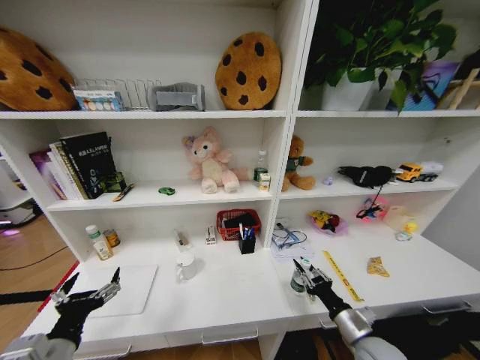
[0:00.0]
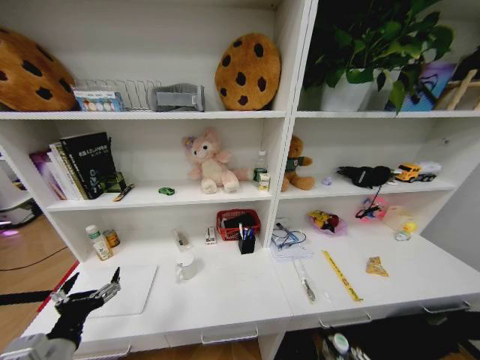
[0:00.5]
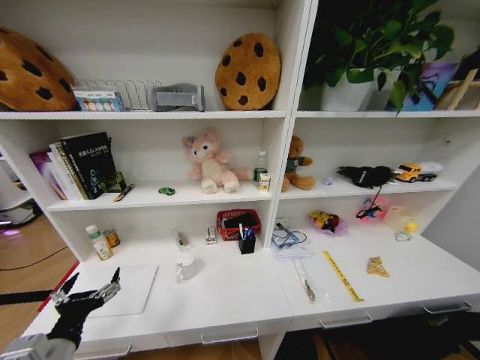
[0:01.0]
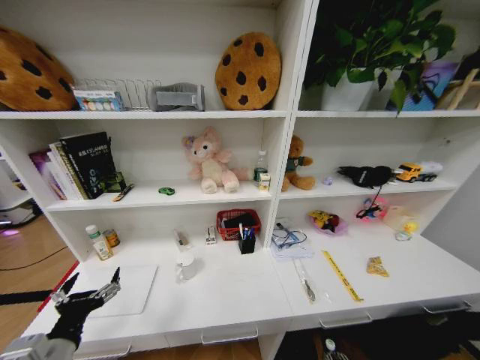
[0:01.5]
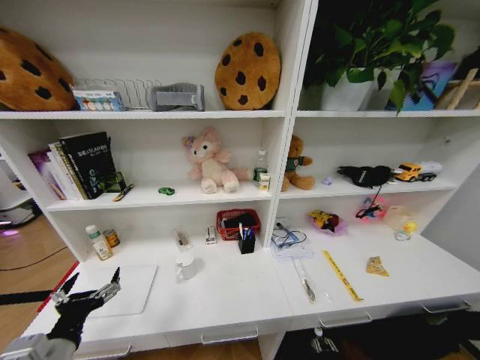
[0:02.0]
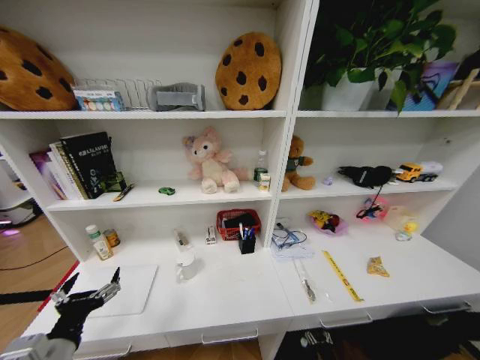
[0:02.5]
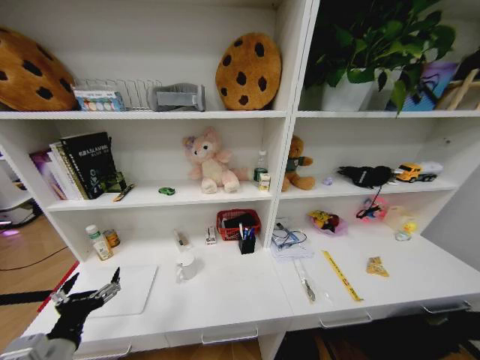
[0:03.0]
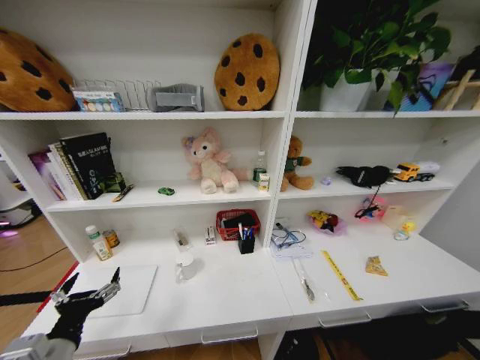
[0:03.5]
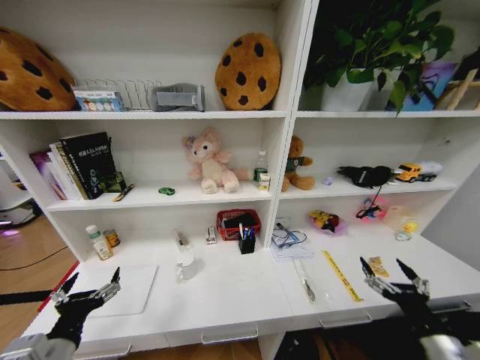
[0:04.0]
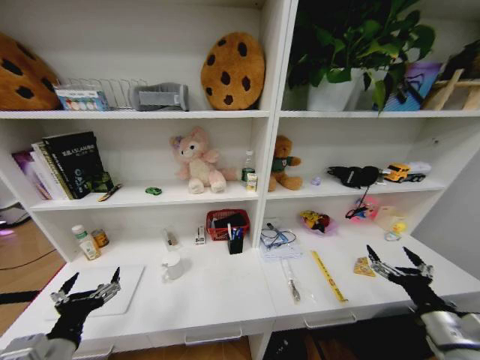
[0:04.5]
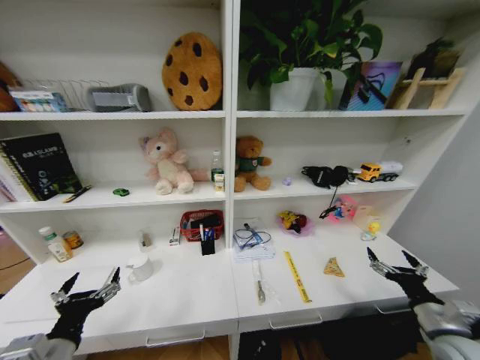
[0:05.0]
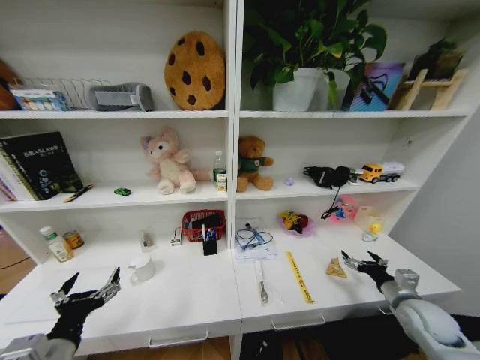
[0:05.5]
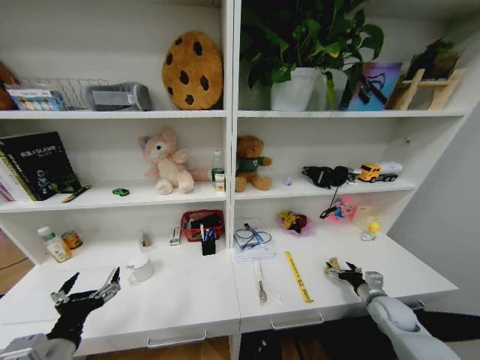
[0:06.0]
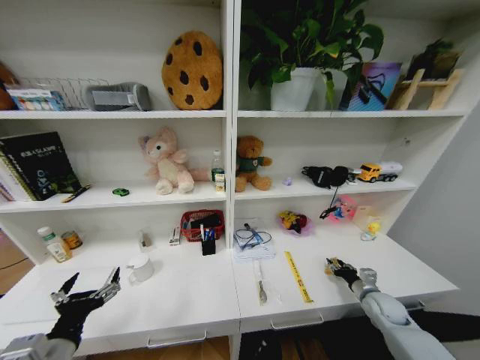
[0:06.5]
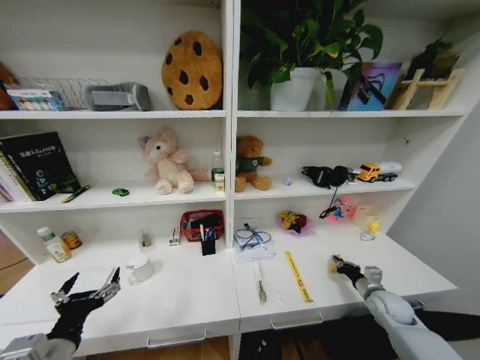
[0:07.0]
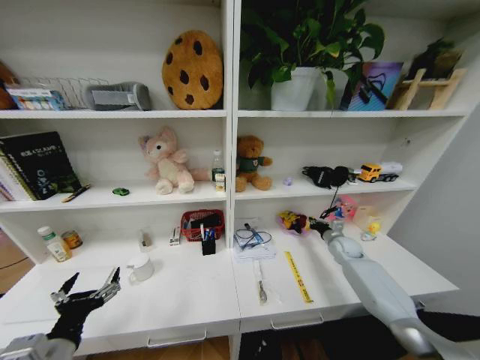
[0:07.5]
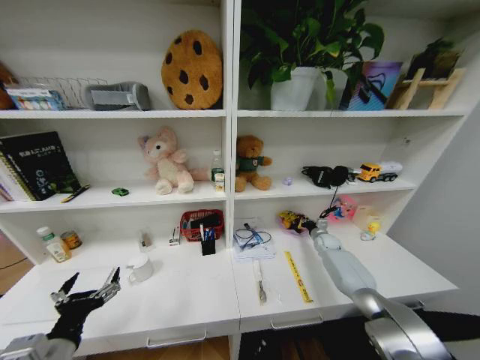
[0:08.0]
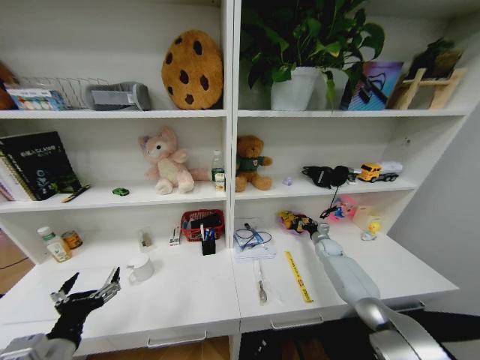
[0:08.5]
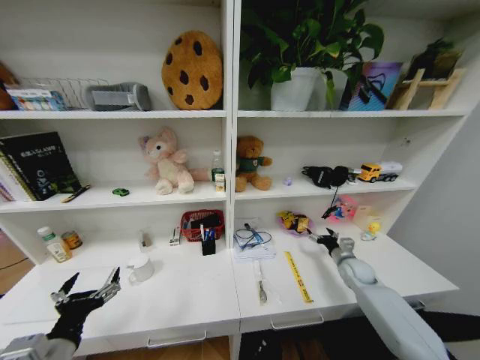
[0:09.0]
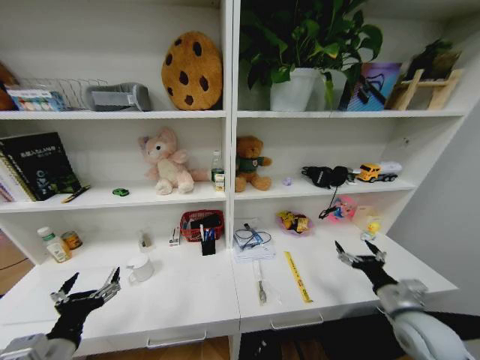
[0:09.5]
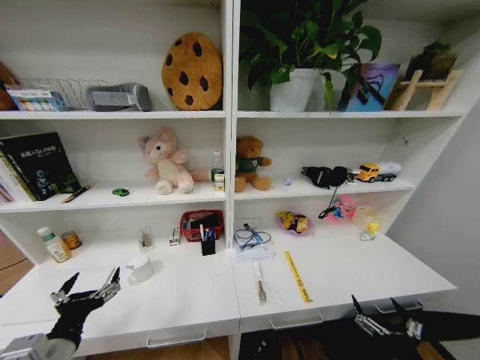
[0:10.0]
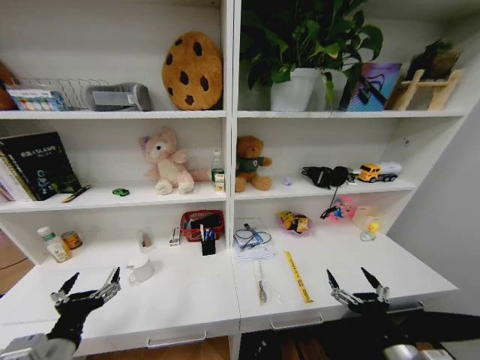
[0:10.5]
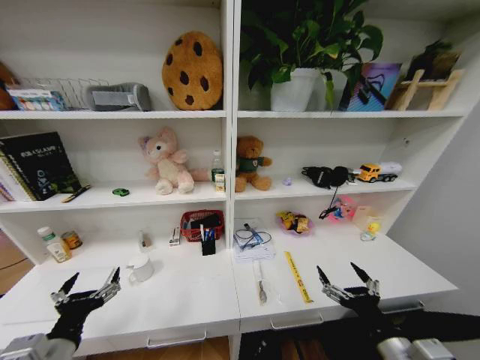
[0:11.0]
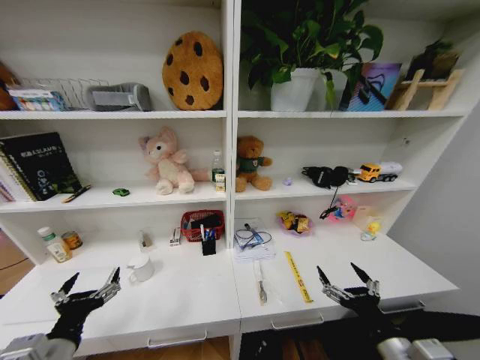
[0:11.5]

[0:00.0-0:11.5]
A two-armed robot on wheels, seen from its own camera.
Task of the whole recording: Organize the objects on the table.
0:00.0 to 0:02.0: The right gripper moves downward, about 35 cm.
0:02.0 to 0:04.0: The right gripper travels upward by approximately 40 cm, and opens its fingers.
0:04.0 to 0:06.0: The right gripper travels forward, downward and to the right by some 25 cm.
0:06.0 to 0:07.5: The right gripper travels forward by some 20 cm, and closes.
0:07.5 to 0:09.5: The right gripper is displaced backward by roughly 30 cm, and opens its fingers.
0:09.5 to 0:11.5: The right gripper is displaced backward and to the left by approximately 15 cm.

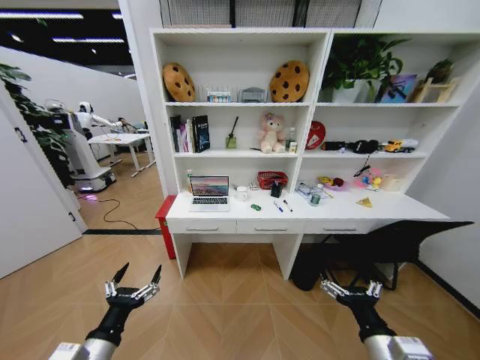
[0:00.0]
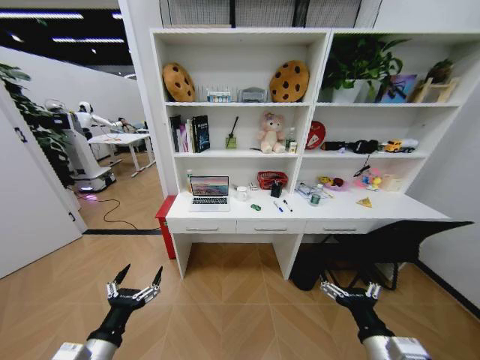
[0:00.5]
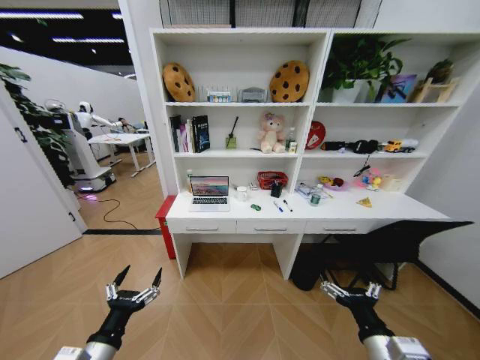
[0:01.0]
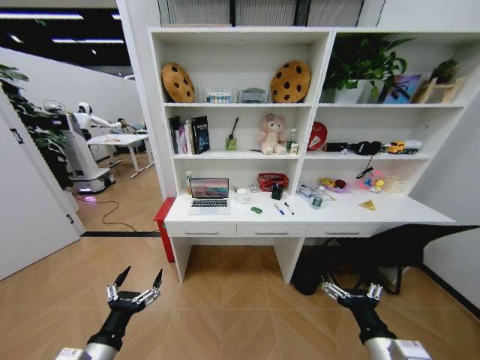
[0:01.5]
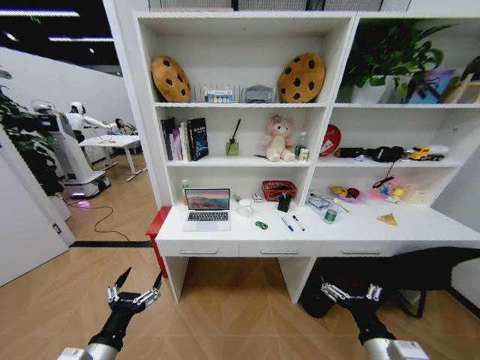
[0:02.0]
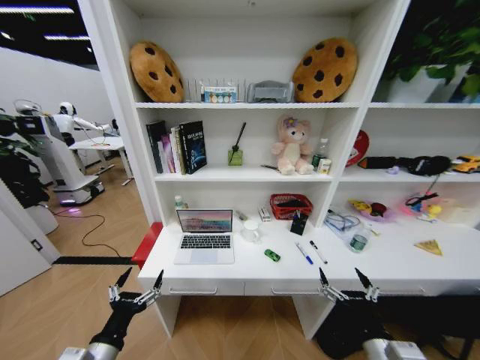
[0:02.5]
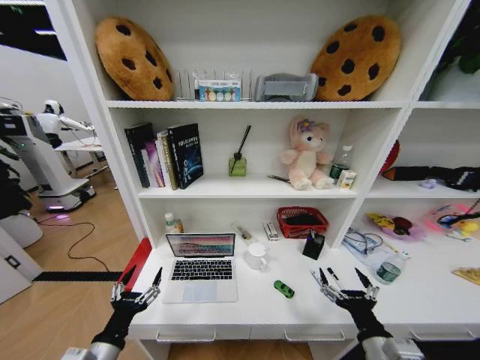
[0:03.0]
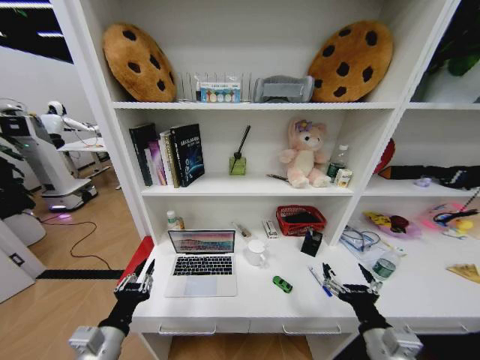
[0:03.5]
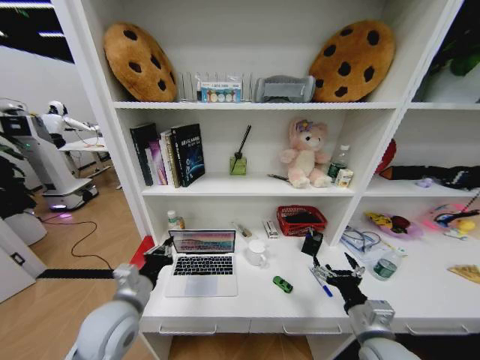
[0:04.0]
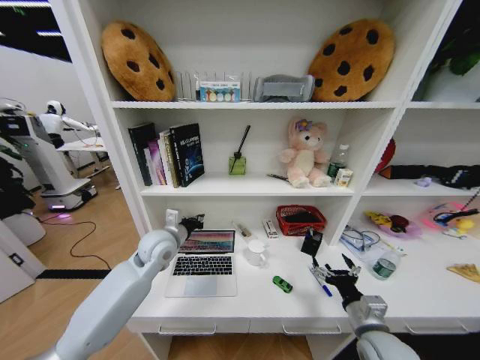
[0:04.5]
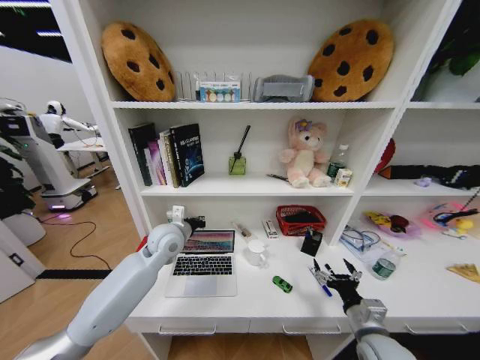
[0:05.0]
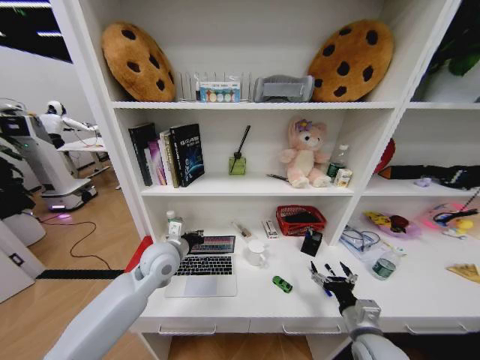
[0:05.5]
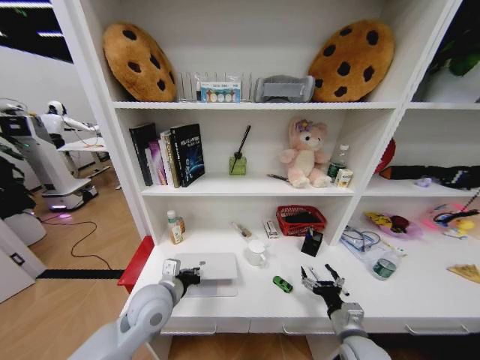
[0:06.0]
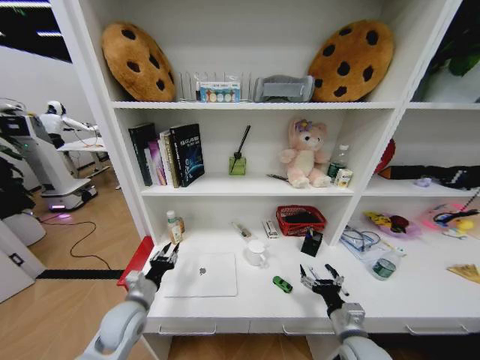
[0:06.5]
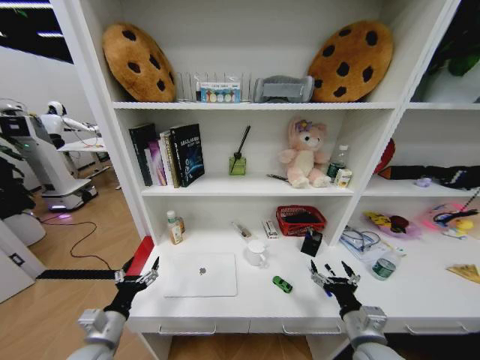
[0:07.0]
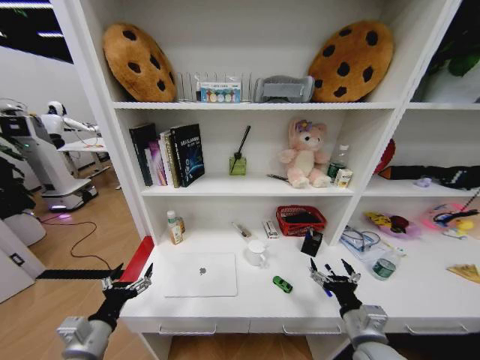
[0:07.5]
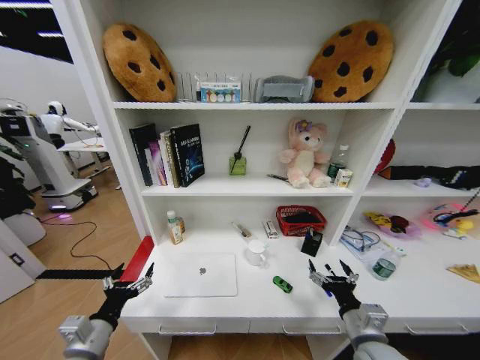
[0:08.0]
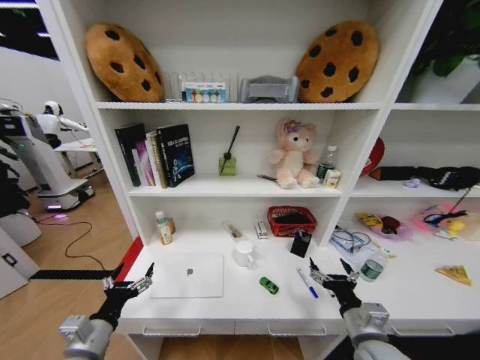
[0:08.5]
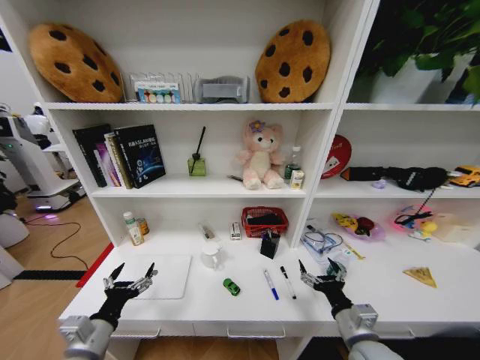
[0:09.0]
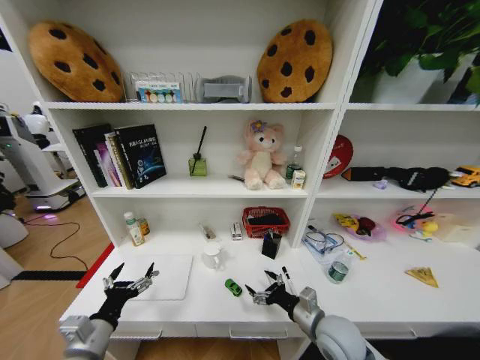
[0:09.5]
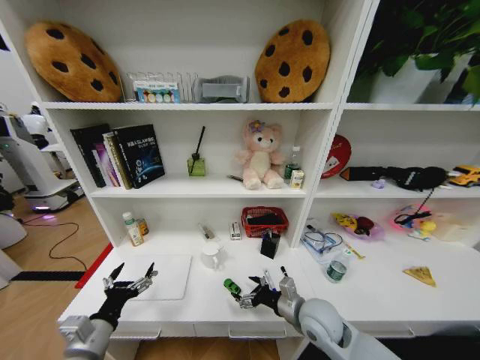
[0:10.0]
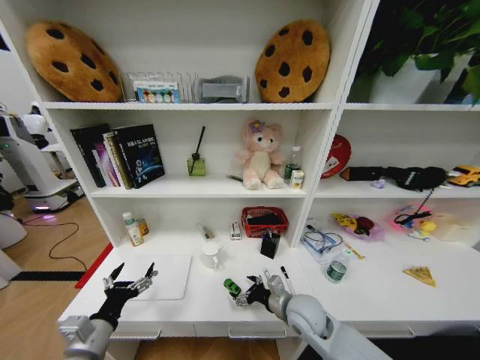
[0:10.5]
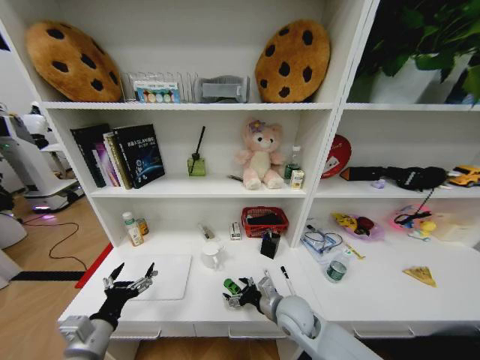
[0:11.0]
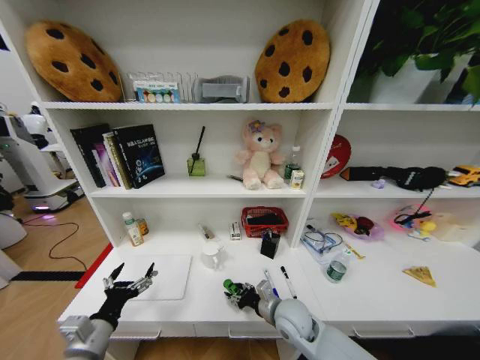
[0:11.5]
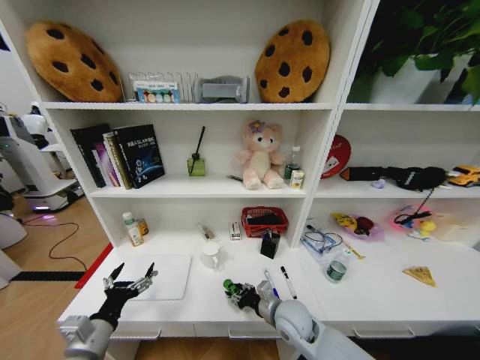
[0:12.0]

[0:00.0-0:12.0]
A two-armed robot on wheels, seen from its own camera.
Task of the whole recording: Organize the objects on the table.
0:02.0 to 0:04.0: The right gripper is displaced forward by approximately 5 cm. The left gripper shifts about 15 cm forward and upward, and closes its fingers.
0:04.0 to 0:06.0: The right gripper shifts about 10 cm downward. Meanwhile the left gripper reaches about 15 cm forward, then returns.
0:06.0 to 0:08.0: The right gripper heads upward, covering roughly 5 cm. The left gripper travels to the left and backward by approximately 20 cm, and opens.
0:08.0 to 0:10.0: The right gripper goes approximately 10 cm forward and to the left.
0:10.0 to 0:12.0: The right gripper goes roughly 5 cm to the left, and closes.

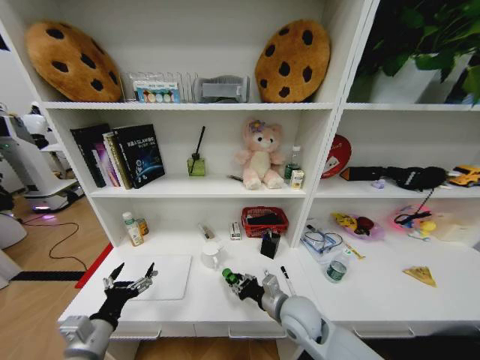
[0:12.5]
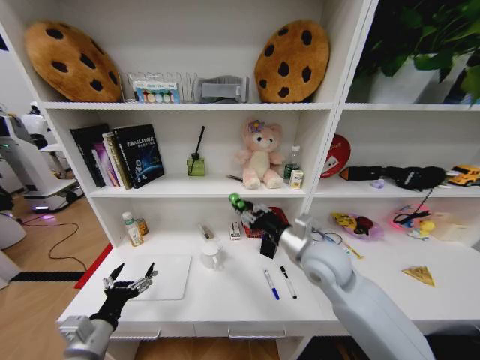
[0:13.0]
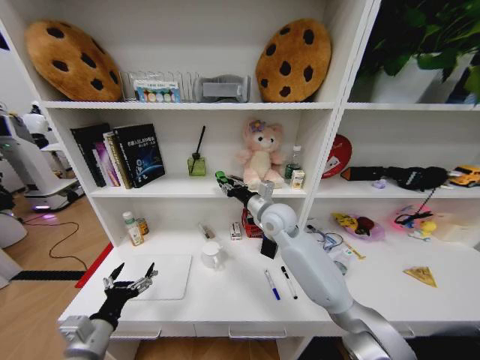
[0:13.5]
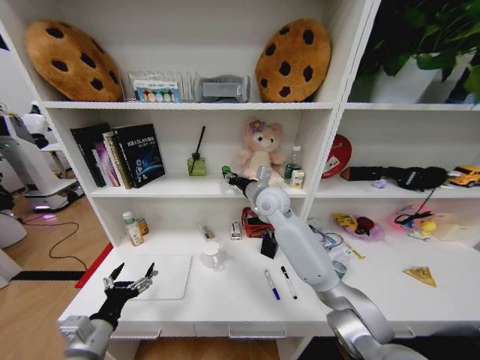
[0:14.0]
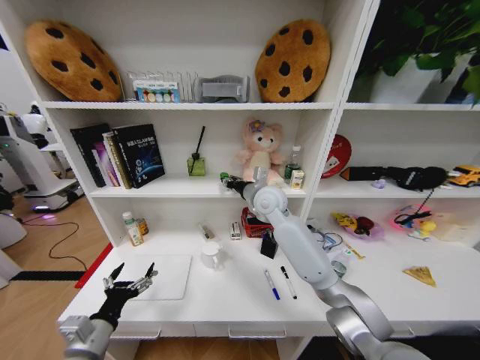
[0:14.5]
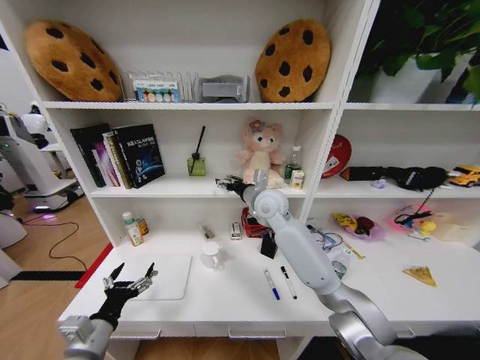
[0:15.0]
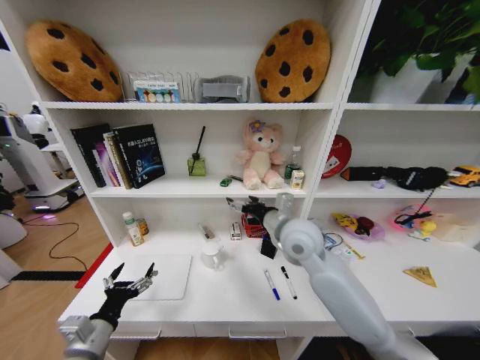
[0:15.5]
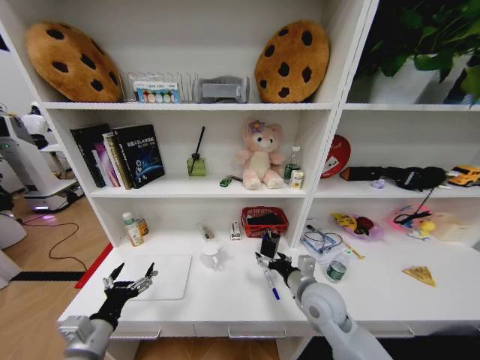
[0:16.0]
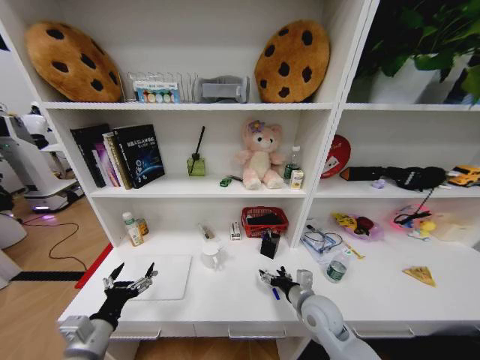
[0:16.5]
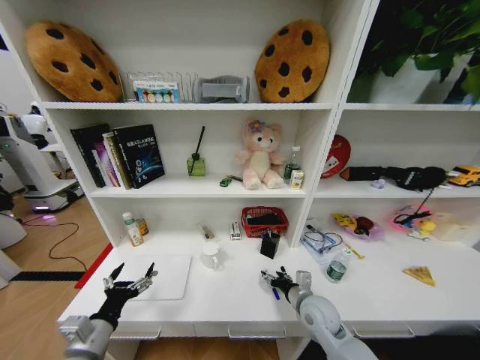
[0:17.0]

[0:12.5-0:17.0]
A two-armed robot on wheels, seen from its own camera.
Task of the whole recording: Organize the objects on the table.
0:12.5 to 0:14.5: The right gripper shifts approximately 30 cm forward and upward.
0:14.5 to 0:17.0: The right gripper shifts some 35 cm downward, backward and to the right, and opens up.
